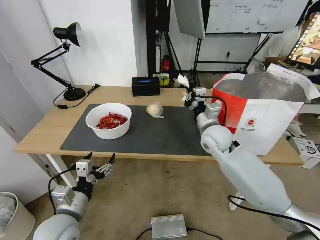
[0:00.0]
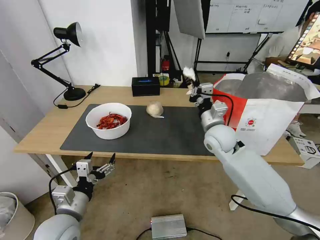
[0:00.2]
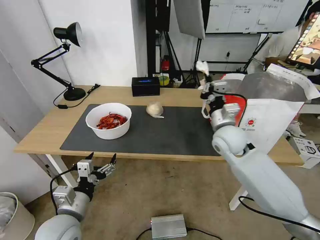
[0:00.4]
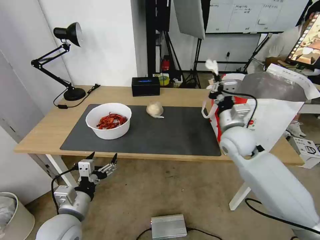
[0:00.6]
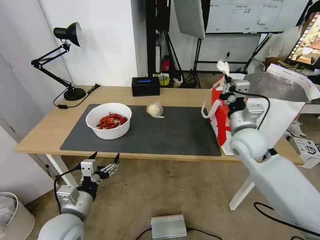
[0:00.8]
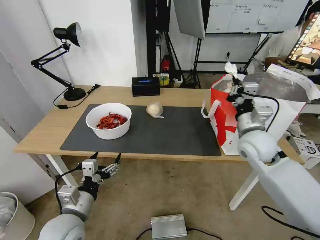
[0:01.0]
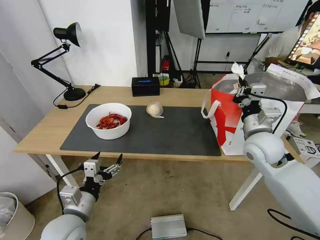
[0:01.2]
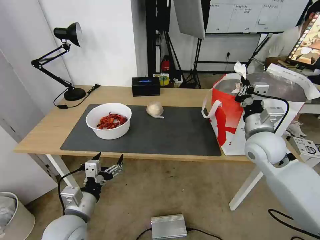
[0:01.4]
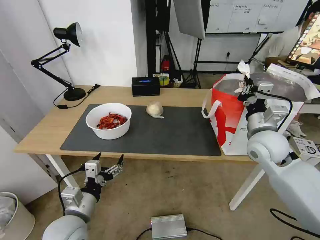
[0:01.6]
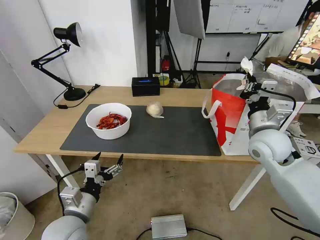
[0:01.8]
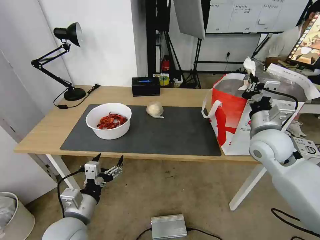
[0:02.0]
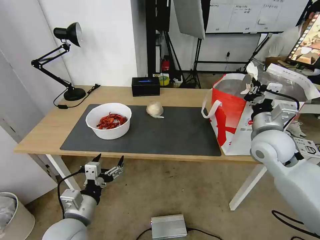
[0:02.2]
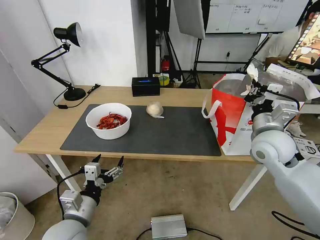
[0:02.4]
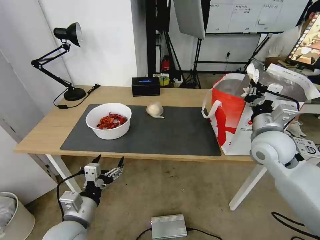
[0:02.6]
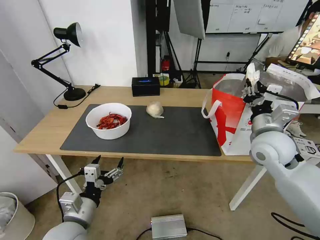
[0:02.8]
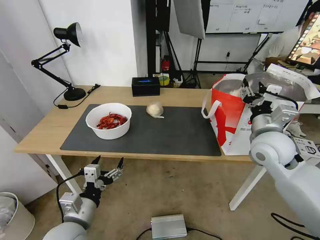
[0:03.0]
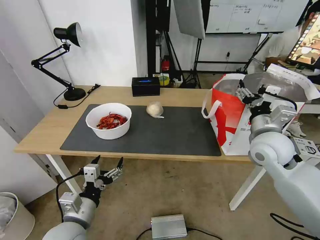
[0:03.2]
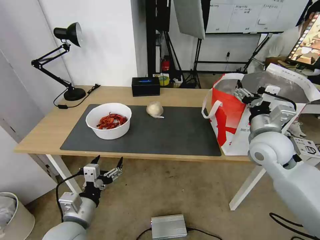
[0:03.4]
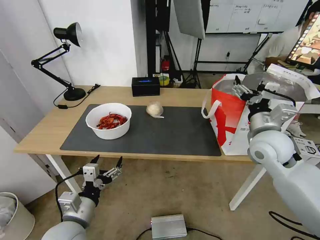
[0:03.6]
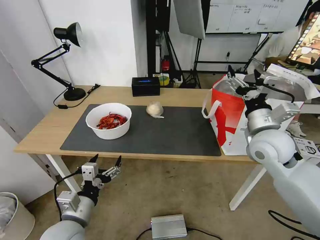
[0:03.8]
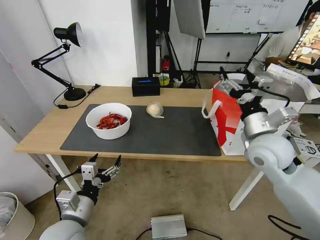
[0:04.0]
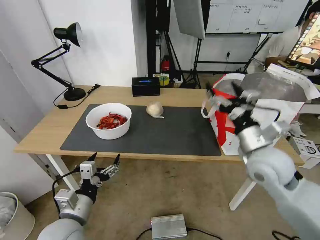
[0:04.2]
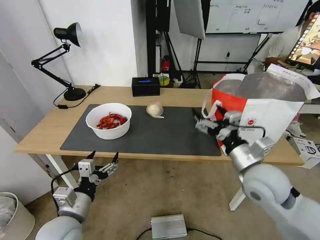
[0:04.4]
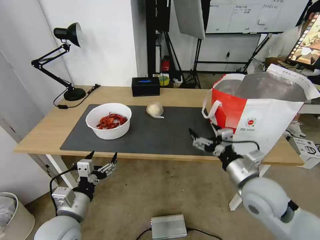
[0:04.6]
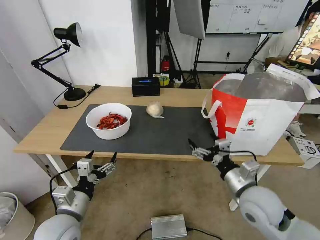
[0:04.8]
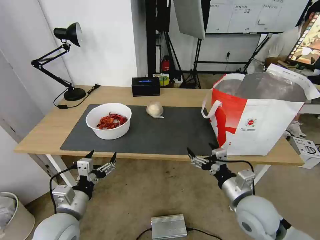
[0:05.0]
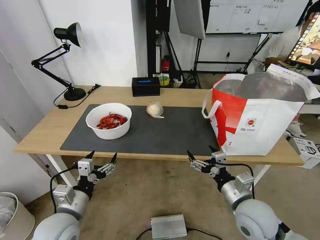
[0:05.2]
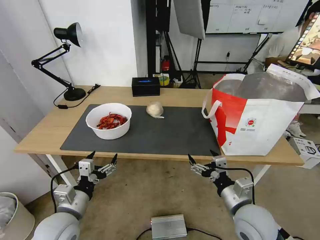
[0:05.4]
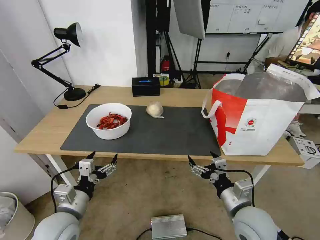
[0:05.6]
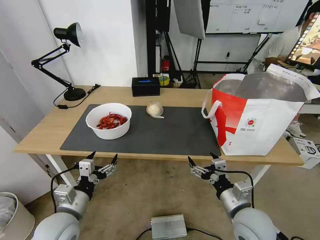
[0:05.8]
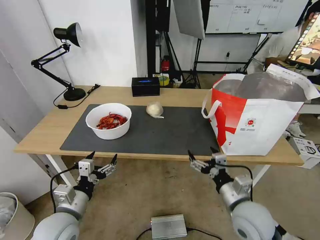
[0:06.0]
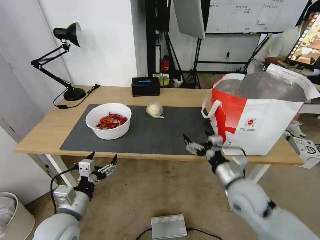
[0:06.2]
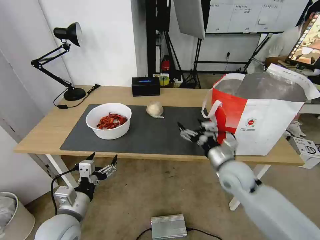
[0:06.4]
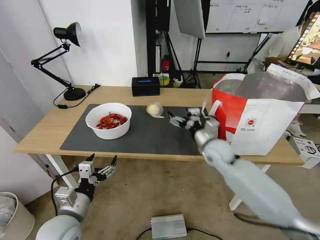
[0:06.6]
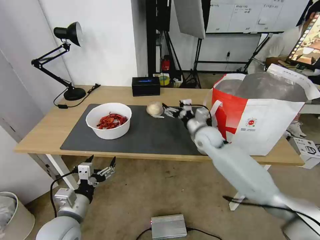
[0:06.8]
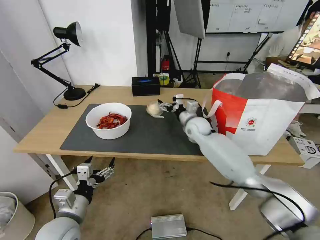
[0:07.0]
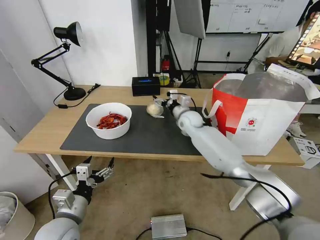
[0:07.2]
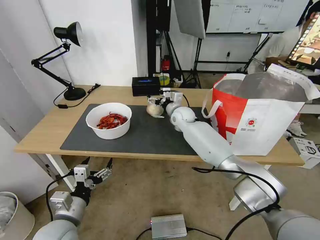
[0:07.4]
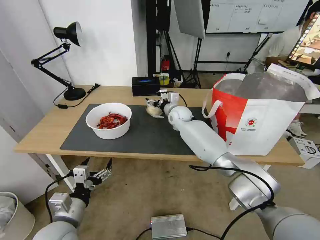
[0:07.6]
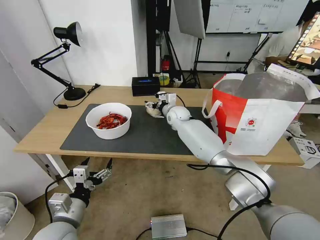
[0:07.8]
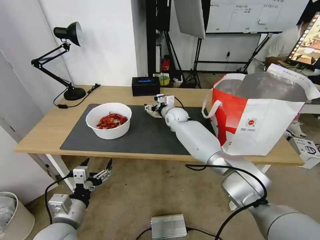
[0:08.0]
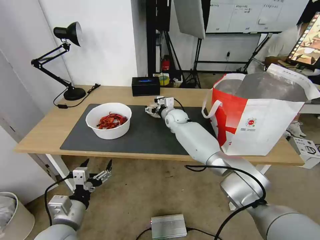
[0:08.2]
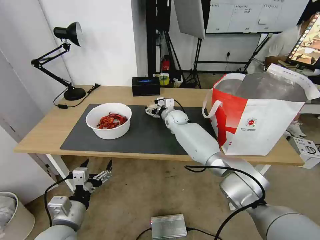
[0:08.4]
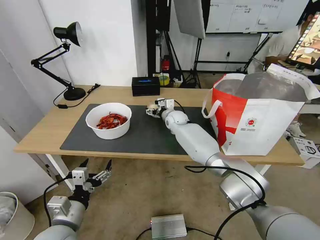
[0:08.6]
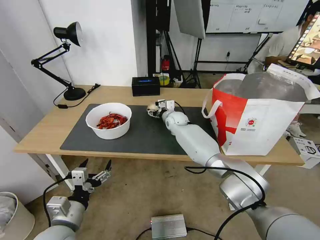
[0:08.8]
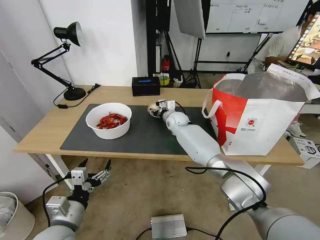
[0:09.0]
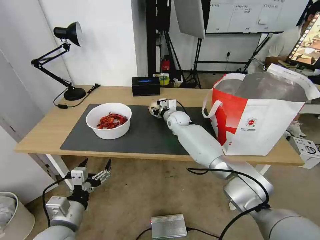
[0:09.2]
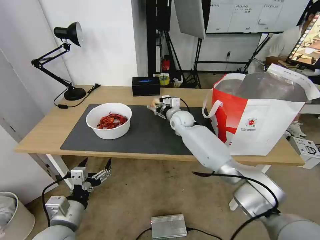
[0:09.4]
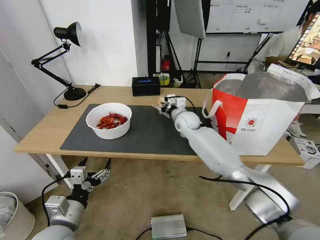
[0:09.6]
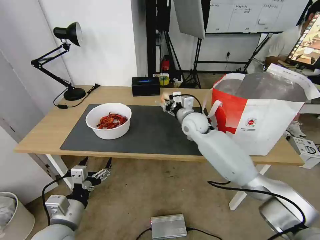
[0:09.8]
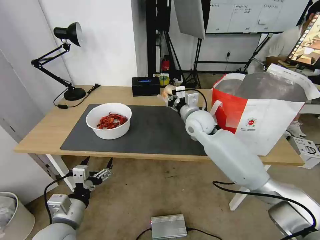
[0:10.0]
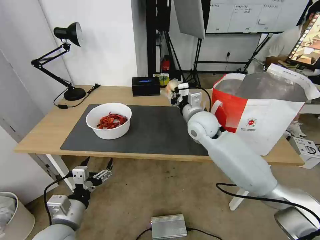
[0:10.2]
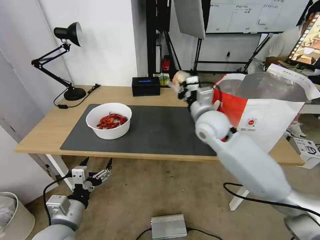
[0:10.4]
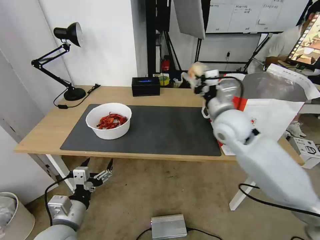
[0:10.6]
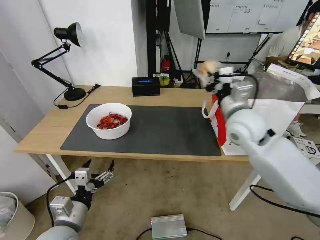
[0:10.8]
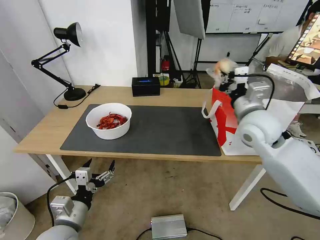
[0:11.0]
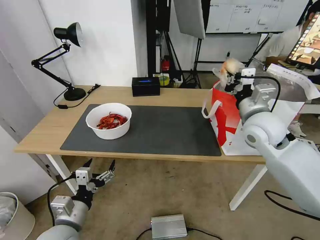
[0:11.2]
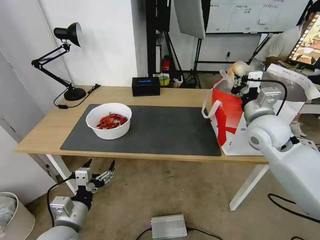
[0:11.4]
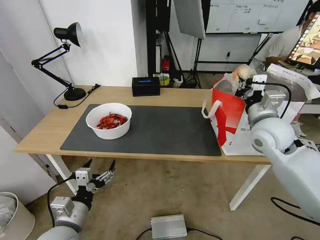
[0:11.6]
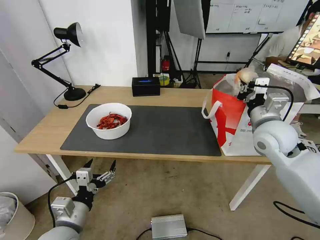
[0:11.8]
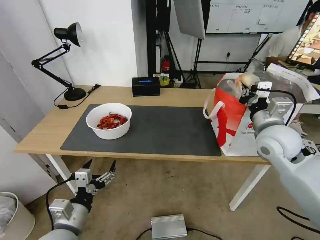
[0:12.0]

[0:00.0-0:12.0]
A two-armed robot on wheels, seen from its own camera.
Task of the whole recording: Pick up the trash from the table and place it into the takeout bag.
0:00.0 to 0:01.6: The right gripper goes about 15 cm to the right and backward.
0:01.6 to 0:03.0: The right gripper opens its fingers.
0:03.0 to 0:04.4: The right gripper heads backward, covering approximately 10 cm, and opens.
0:04.4 to 0:06.0: The right gripper travels downward and backward by roughly 10 cm.
0:06.0 to 0:07.6: The right gripper moves forward, approximately 40 cm.
0:07.6 to 0:09.0: The right gripper closes up.
0:09.0 to 0:10.4: The right gripper is displaced backward, upward and to the right by about 25 cm, and closes.
0:10.4 to 0:12.0: The right gripper shifts some 15 cm to the right and backward.

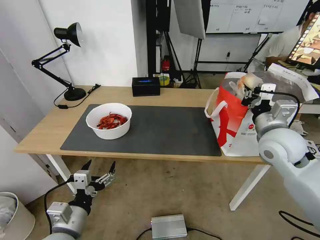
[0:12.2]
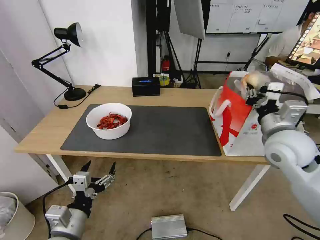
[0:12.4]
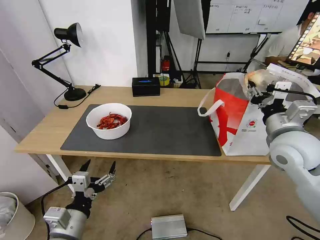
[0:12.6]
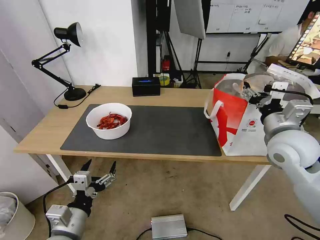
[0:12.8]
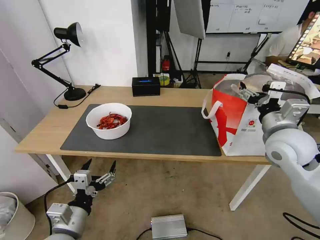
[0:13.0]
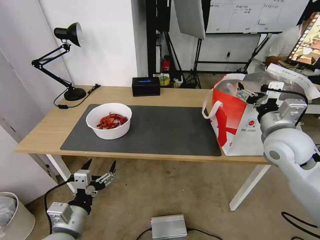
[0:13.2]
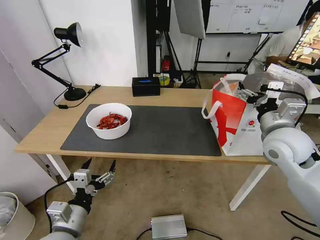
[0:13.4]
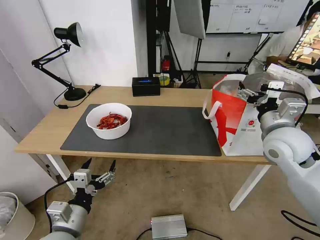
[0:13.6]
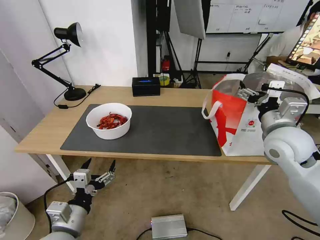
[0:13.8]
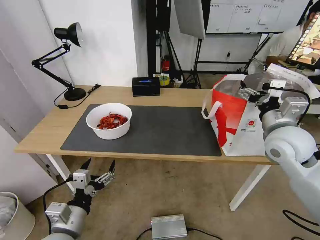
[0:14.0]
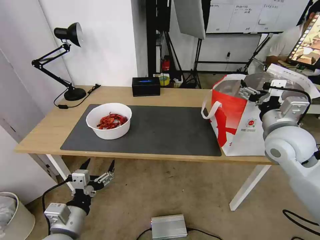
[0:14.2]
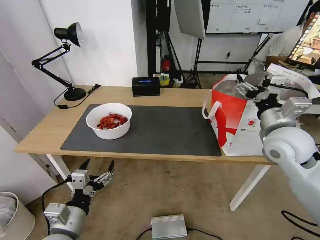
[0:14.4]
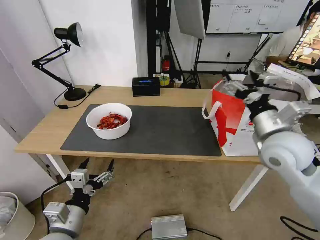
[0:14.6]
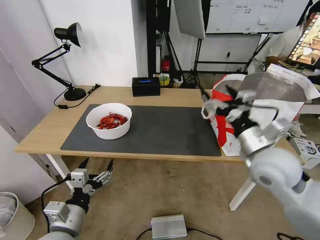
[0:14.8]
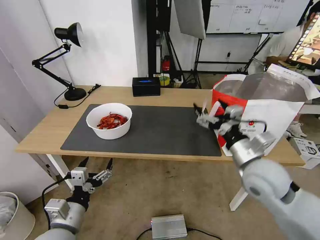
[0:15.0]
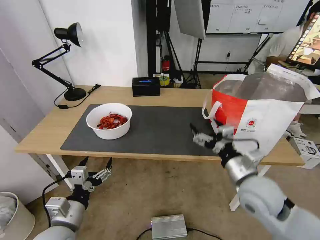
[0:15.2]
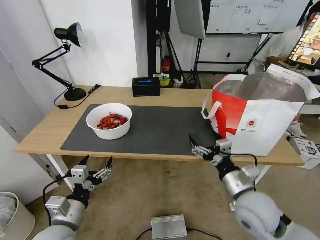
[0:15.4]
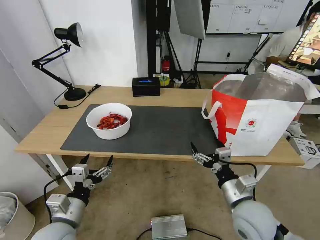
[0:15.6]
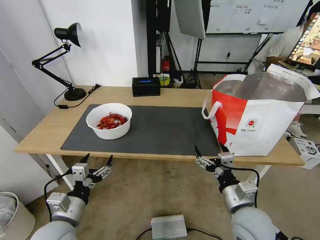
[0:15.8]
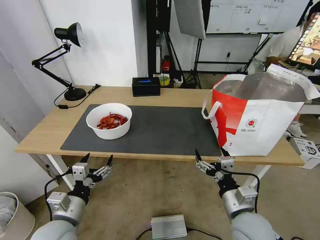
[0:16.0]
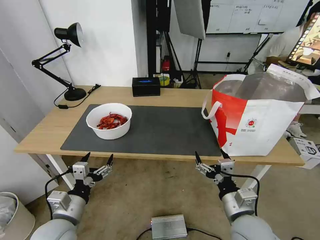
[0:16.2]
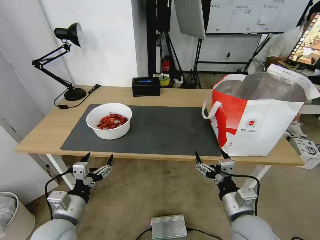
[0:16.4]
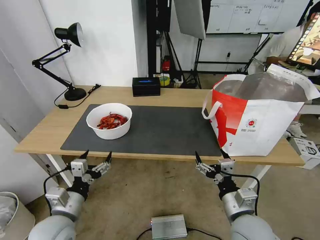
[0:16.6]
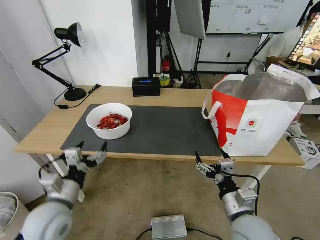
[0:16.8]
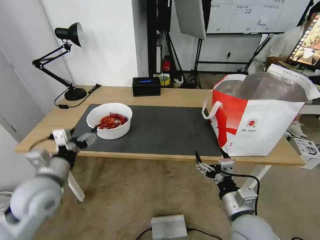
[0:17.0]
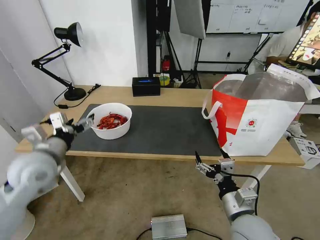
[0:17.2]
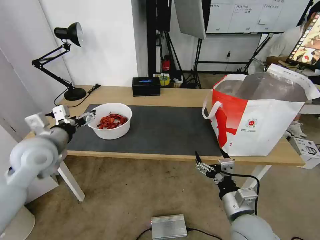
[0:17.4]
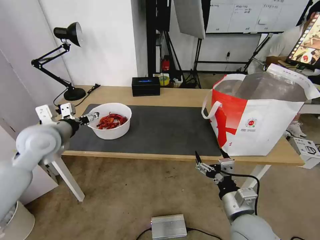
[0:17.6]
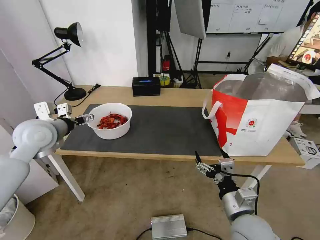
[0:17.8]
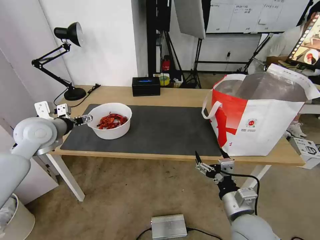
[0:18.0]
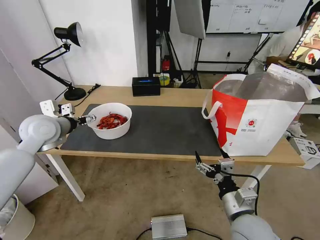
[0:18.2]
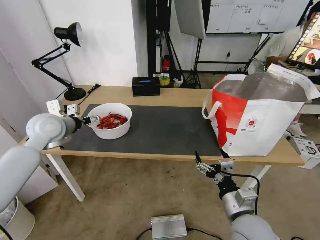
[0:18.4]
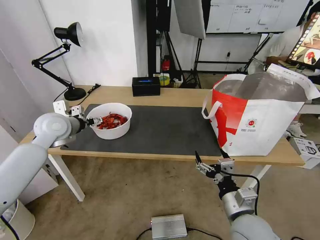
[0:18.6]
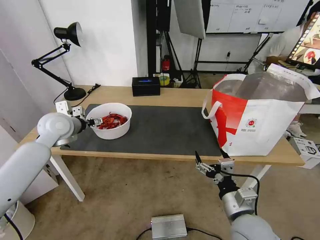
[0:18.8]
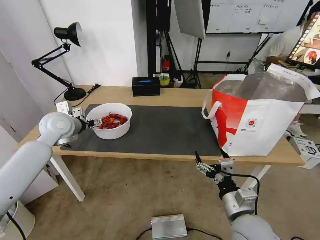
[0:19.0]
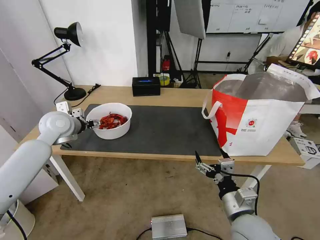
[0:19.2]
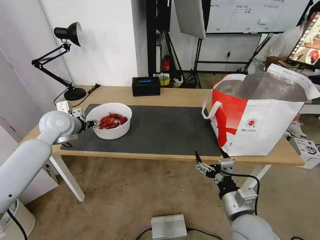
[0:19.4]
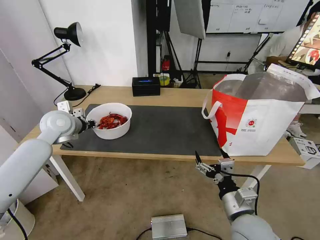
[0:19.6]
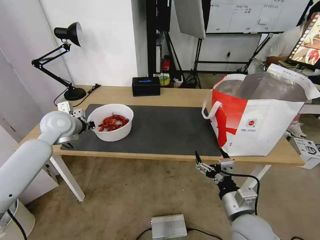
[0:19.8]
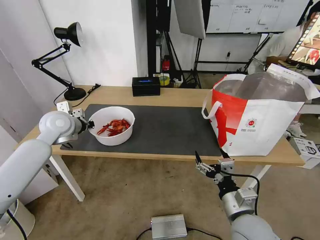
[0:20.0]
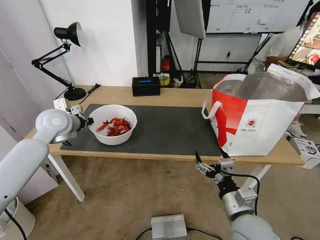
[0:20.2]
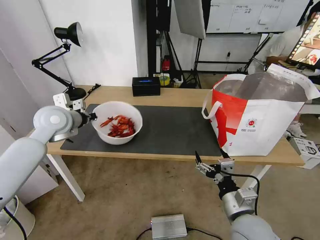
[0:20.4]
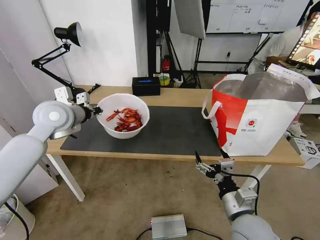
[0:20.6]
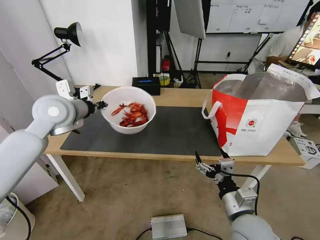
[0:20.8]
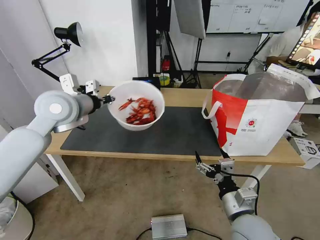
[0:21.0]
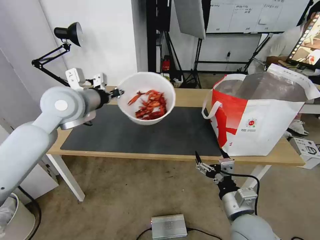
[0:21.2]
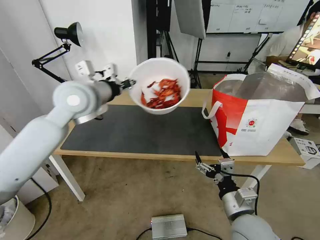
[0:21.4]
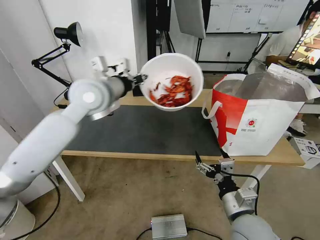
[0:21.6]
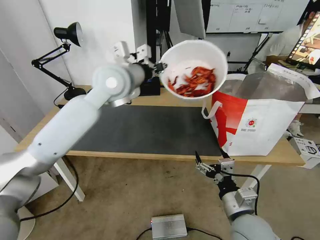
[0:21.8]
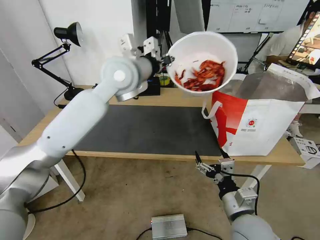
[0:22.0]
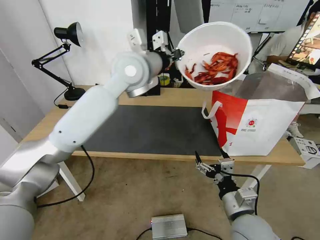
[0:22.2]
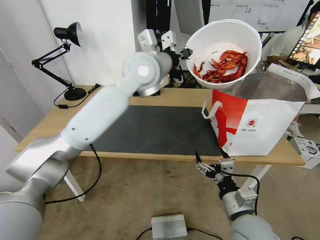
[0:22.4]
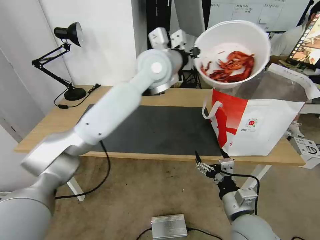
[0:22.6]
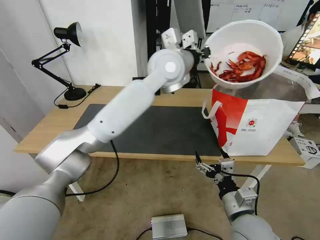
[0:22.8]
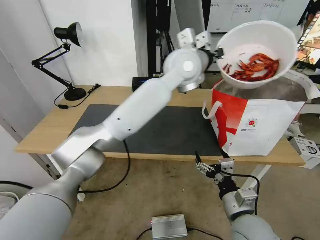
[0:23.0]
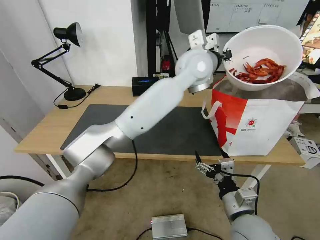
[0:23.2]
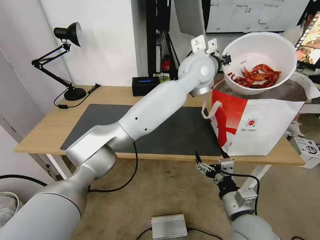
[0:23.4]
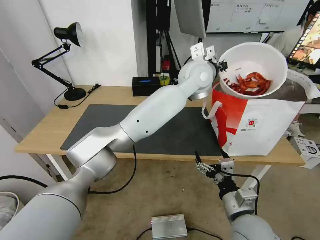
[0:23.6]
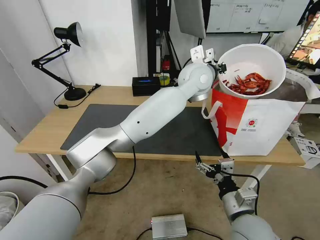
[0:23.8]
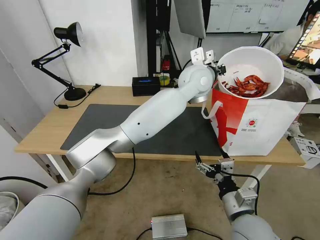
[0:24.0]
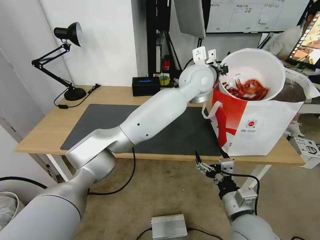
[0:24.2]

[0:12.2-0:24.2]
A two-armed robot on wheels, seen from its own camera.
Task of the whole recording: Pick up the trash from the table and place it into the takeout bag.
0:12.2 to 0:13.8: The right gripper opens up.
0:13.8 to 0:15.2: The right gripper is displaced downward, backward and to the left by roughly 15 cm.
0:15.2 to 0:16.6: The right gripper shifts approximately 10 cm backward and downward.
0:16.6 to 0:18.2: The left gripper shifts roughly 30 cm forward and upward.
0:18.2 to 0:19.8: The left gripper changes place by roughly 5 cm, and closes its fingers.
0:19.8 to 0:21.2: The left gripper is displaced upward and to the right by roughly 15 cm.
0:21.2 to 0:22.6: The left gripper shifts approximately 25 cm to the right.
0:22.6 to 0:24.2: The left gripper moves to the right, about 10 cm.
